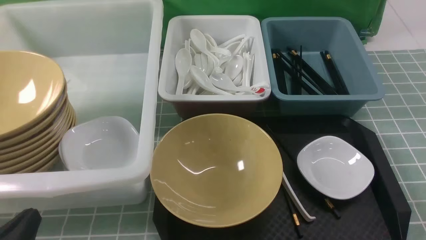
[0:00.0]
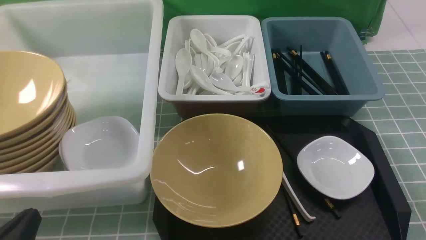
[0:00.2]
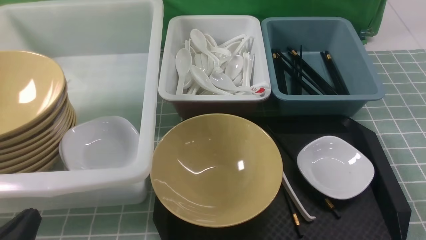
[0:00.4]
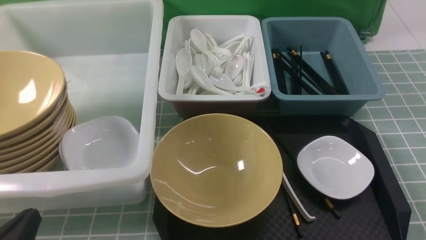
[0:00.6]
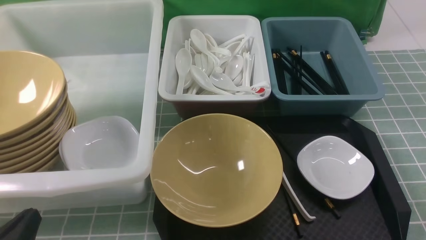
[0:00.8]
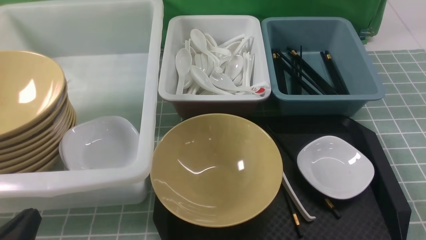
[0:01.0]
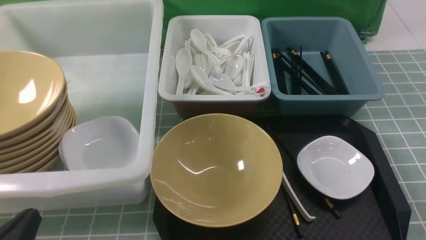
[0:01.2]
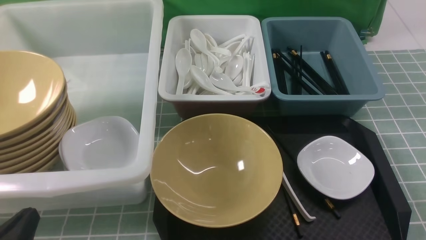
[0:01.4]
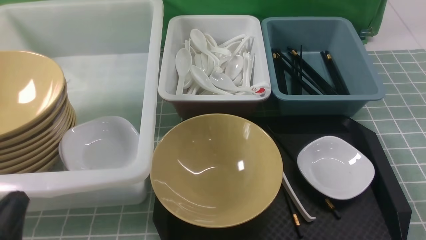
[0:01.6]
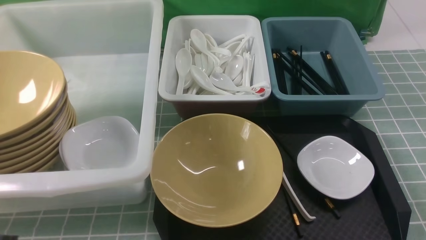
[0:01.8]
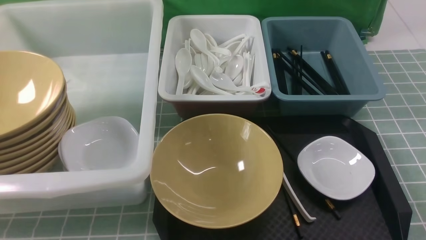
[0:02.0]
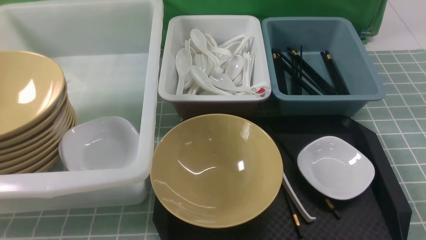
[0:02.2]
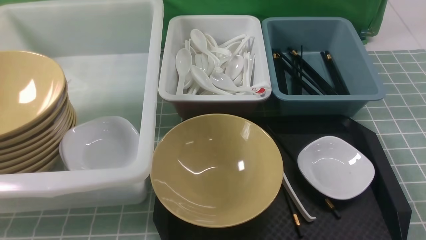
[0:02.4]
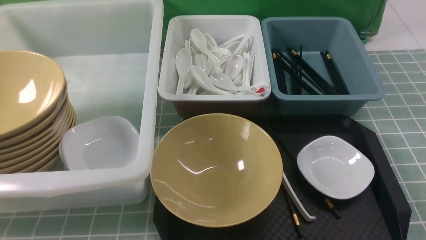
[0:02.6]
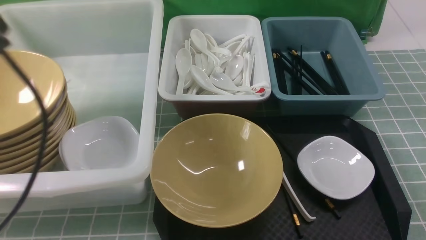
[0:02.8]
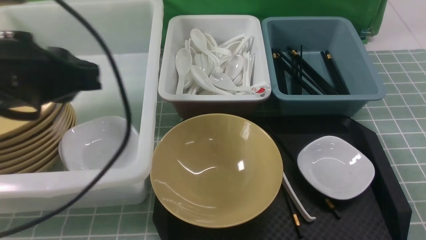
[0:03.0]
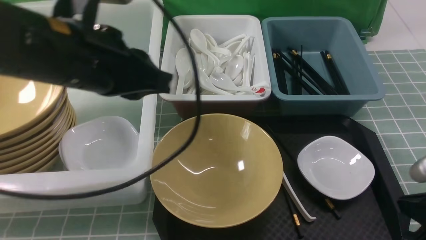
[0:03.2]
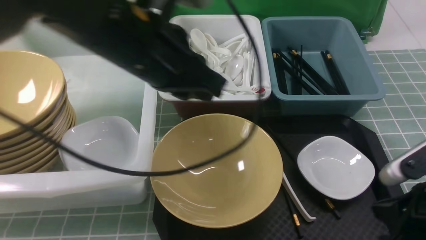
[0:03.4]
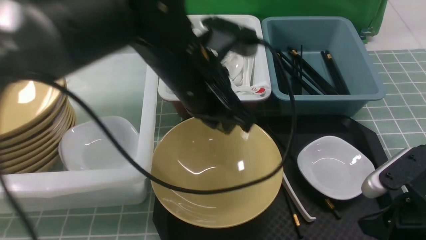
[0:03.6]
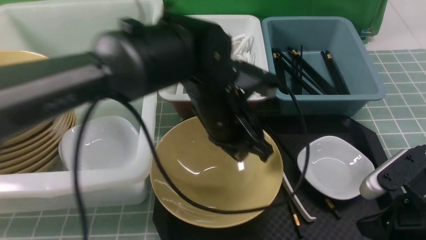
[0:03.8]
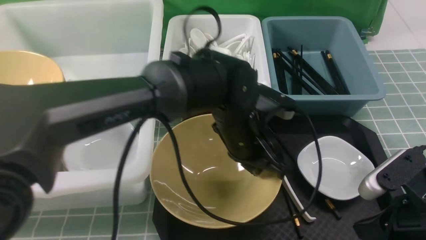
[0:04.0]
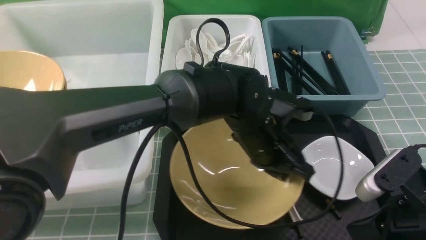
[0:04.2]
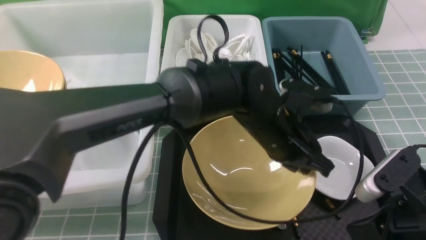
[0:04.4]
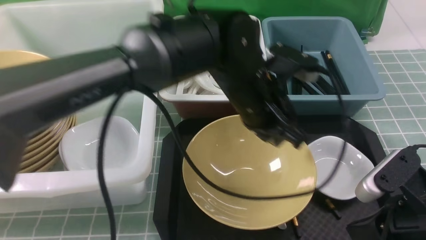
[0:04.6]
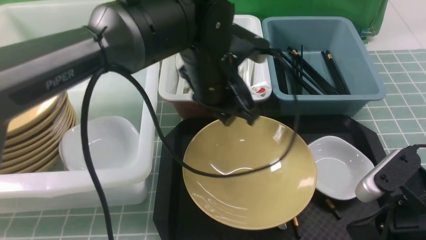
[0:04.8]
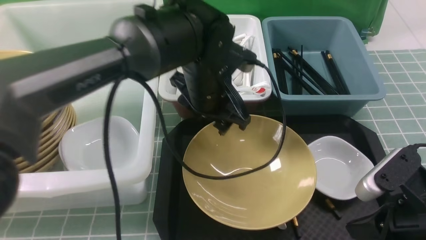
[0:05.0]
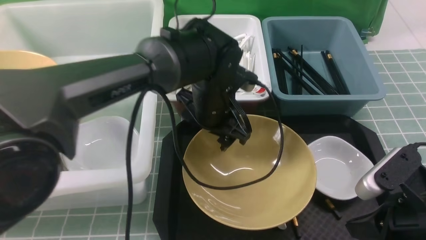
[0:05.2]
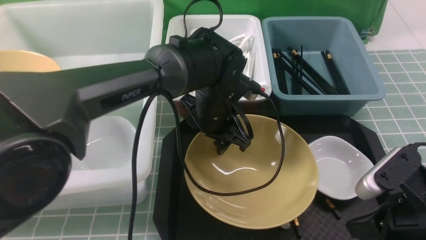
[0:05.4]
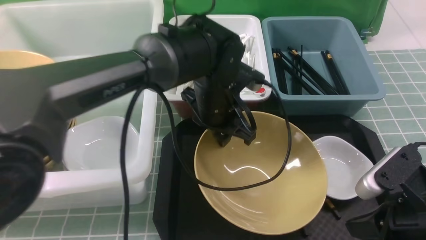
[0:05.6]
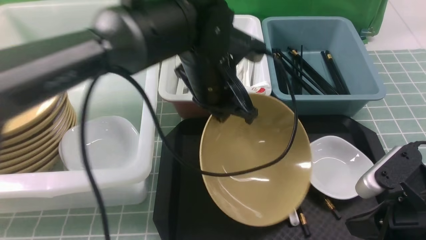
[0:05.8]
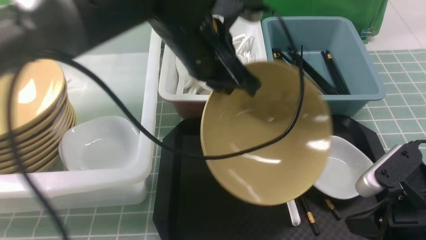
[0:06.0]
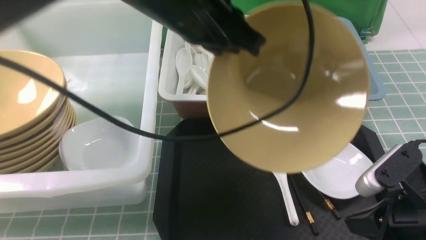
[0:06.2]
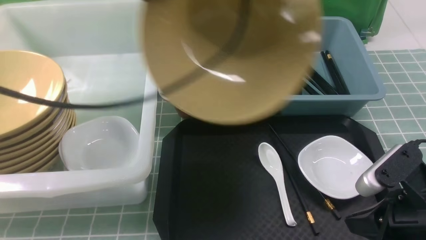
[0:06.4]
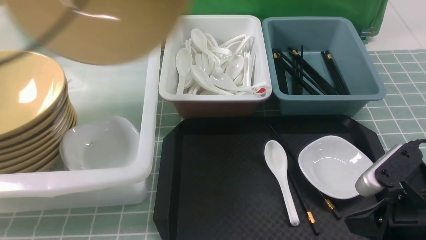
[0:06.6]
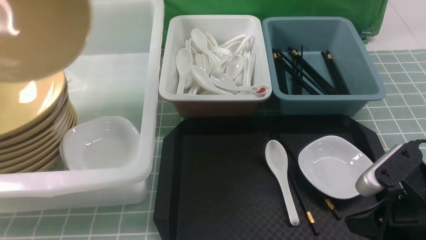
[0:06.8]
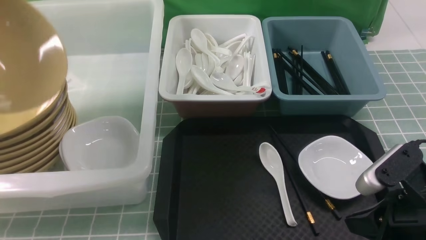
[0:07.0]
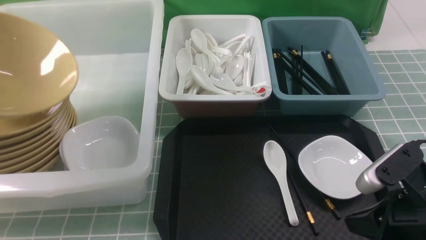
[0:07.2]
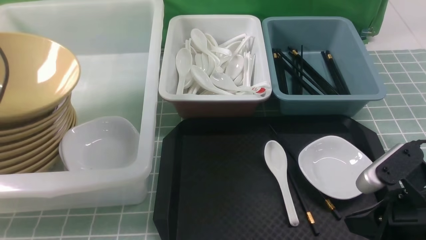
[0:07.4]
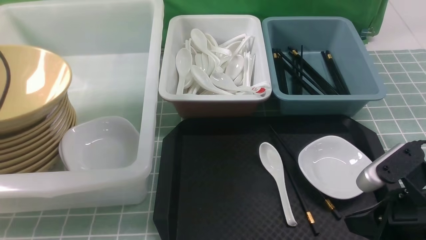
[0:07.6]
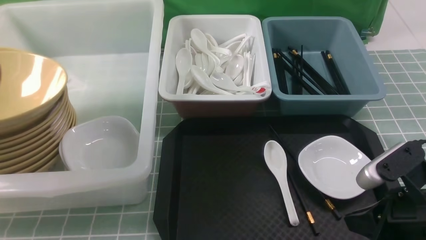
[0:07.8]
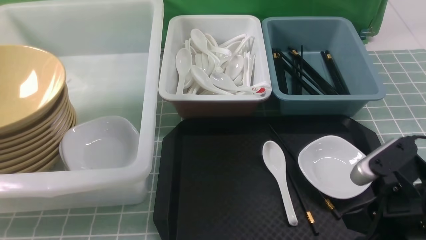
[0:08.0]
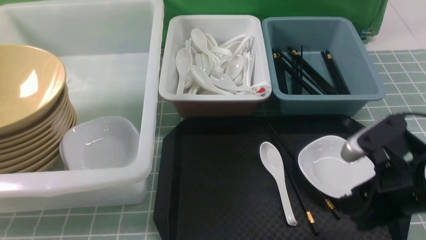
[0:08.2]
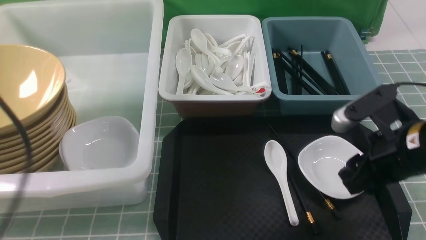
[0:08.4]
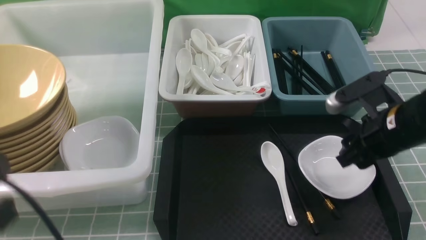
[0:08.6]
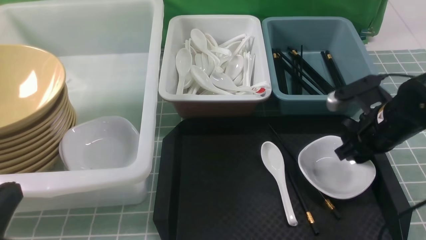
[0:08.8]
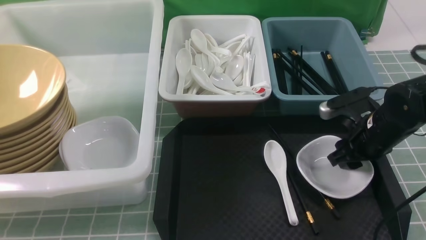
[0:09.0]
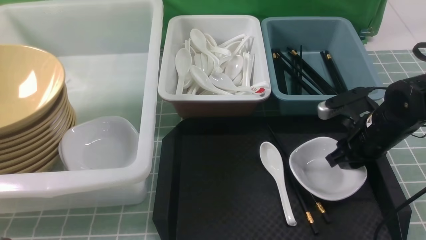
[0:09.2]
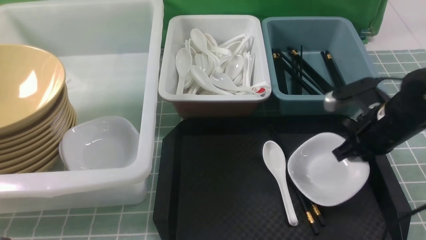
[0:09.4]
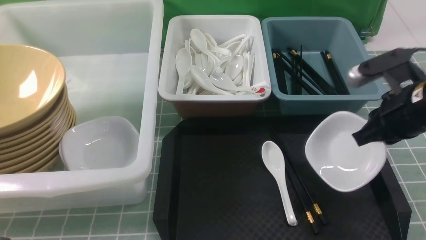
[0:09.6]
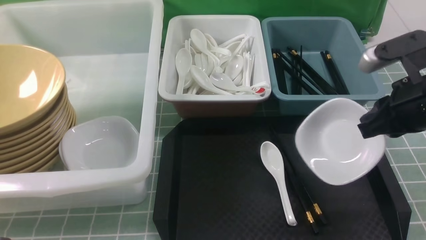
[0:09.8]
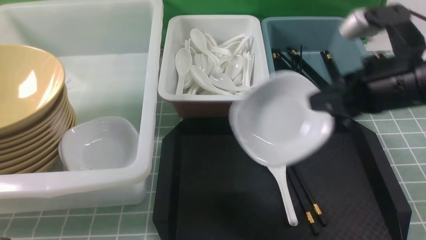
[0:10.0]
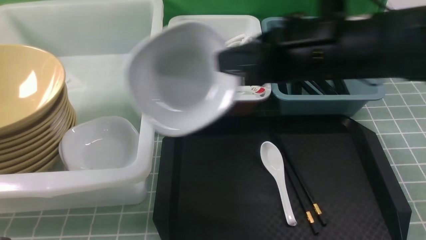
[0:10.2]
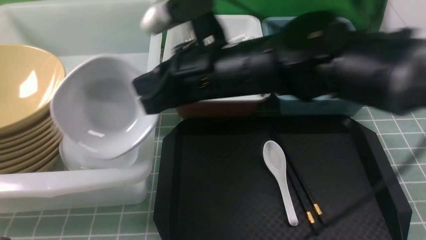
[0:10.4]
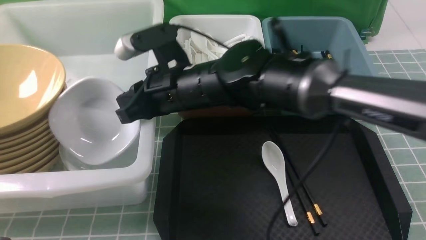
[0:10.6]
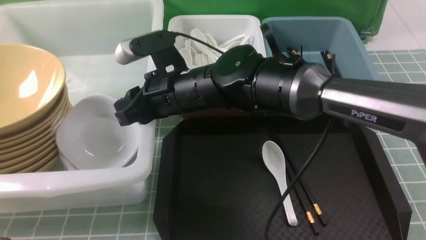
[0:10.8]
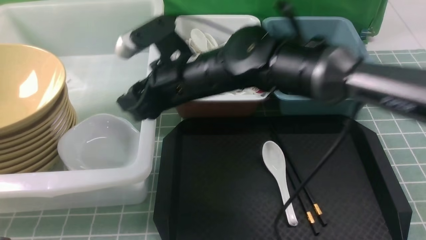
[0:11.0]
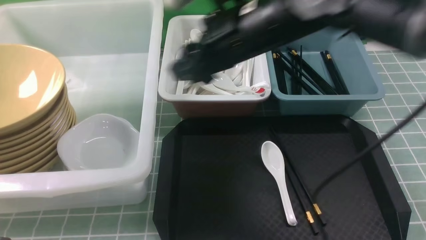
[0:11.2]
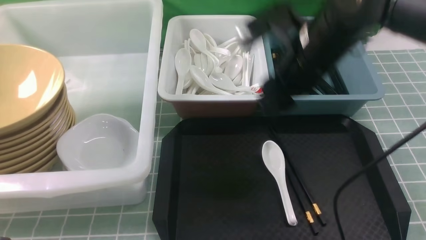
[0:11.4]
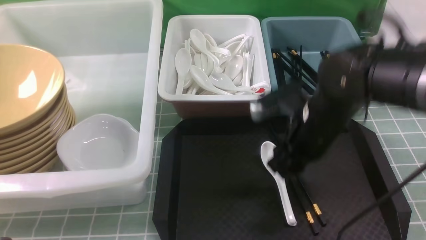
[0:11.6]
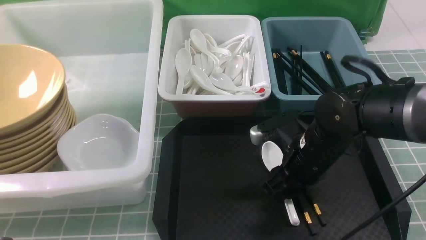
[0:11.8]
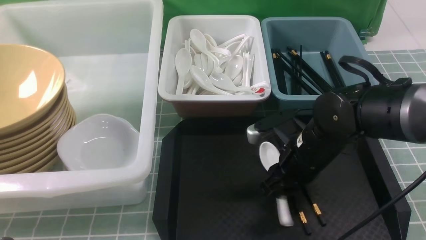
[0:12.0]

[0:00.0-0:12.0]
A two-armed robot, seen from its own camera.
Task of the whole recording: on blue table put chopsticks spoon bowls plates into blue grey white boxes.
Step, 0:00.0 to 0:05.6: use the left arm to grab the yellow noodle bowl on the left.
Step, 0:06.0 to 0:07.8: use the left arm to put the noodle bowl into the large storage box on the left.
Step, 0:08.0 to 0:09.4: use the right arm to grab the plate.
Step, 0:09.6 to 0:11.0: use the right arm to put the plate into the large storage box on the left.
0:00.0 to 0:01.6: The grippers make only small movements.
0:01.6 to 0:03.0: The left gripper is displaced upward, forward and to the right by about 25 cm.
0:03.0 to 0:04.4: The right gripper heads to the left, covering approximately 5 cm. The left gripper shifts approximately 30 cm to the right and downward.
0:04.4 to 0:06.0: The left gripper shifts about 15 cm upward and to the left, and opens and closes again.
0:06.0 to 0:07.6: The left gripper moves to the left, approximately 35 cm, and opens.
0:07.6 to 0:09.0: The left gripper is displaced backward, to the right and downward by some 25 cm, and closes. Meanwhile the right gripper goes approximately 15 cm forward, and opens its fingers.
0:09.0 to 0:10.4: The right gripper shifts some 30 cm to the left and upward, and closes up.
0:10.4 to 0:12.0: The right gripper moves downward and to the right, roughly 20 cm, and opens up.

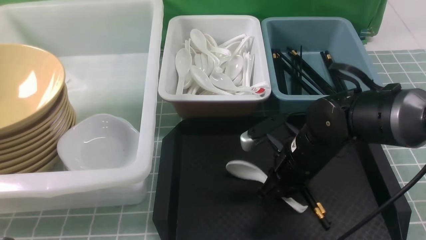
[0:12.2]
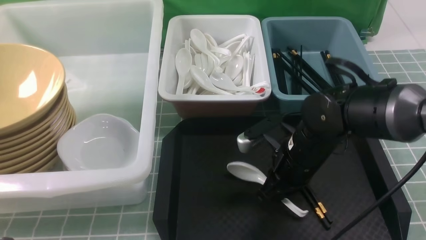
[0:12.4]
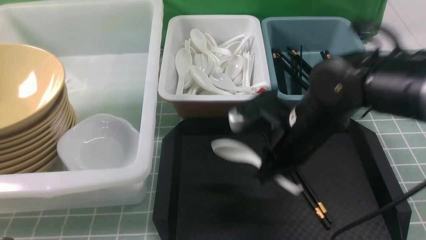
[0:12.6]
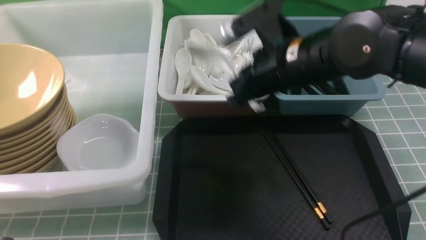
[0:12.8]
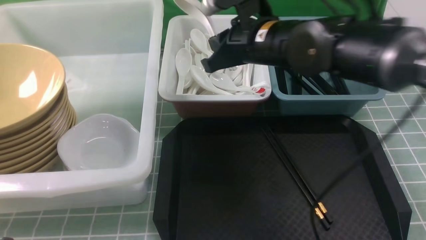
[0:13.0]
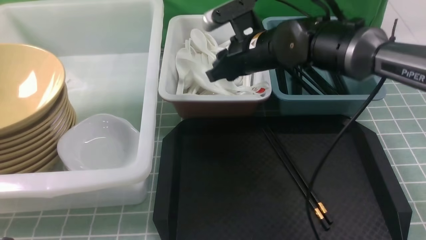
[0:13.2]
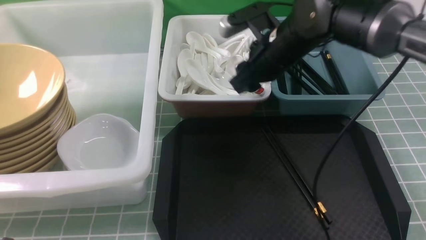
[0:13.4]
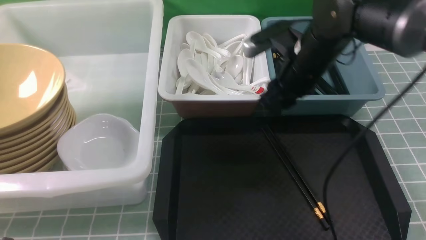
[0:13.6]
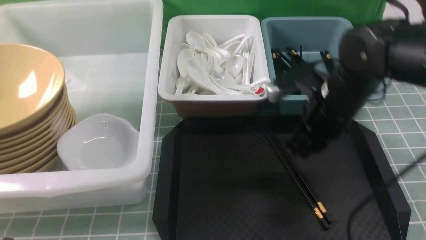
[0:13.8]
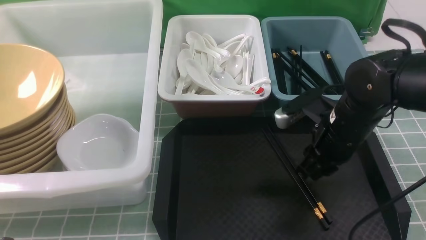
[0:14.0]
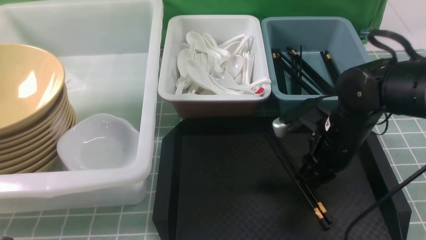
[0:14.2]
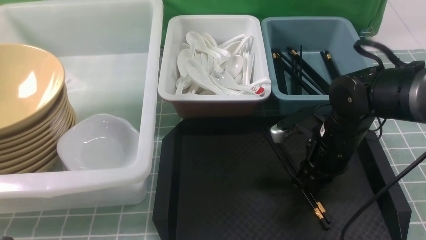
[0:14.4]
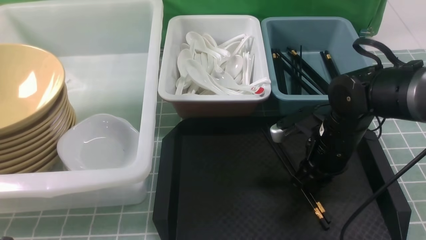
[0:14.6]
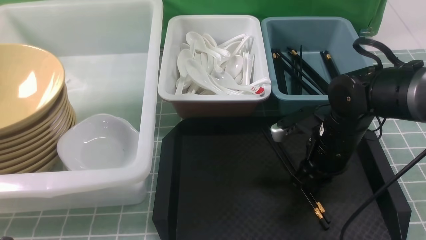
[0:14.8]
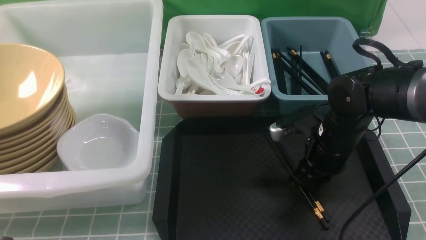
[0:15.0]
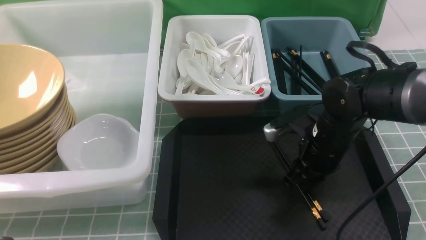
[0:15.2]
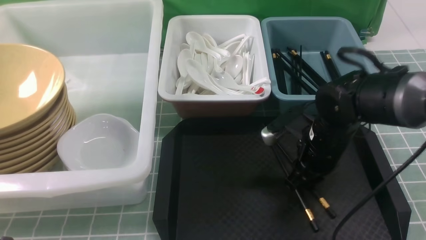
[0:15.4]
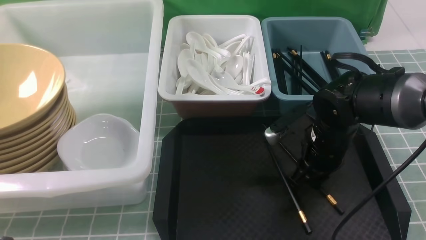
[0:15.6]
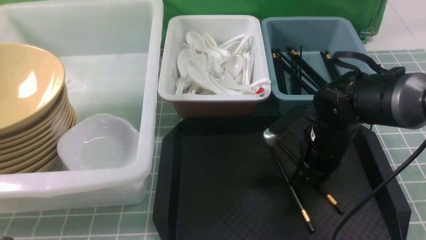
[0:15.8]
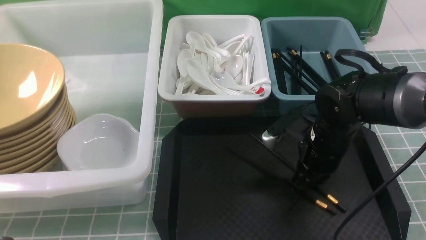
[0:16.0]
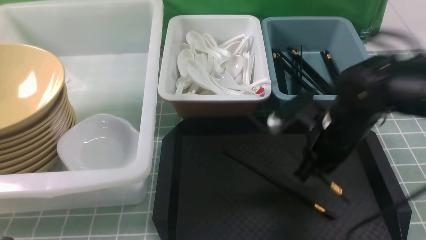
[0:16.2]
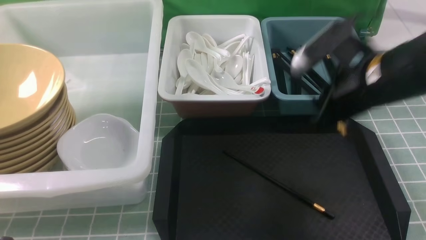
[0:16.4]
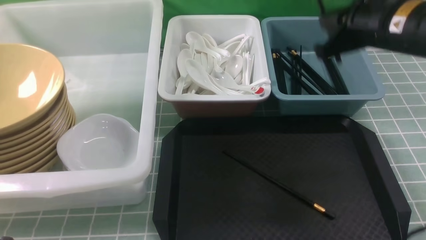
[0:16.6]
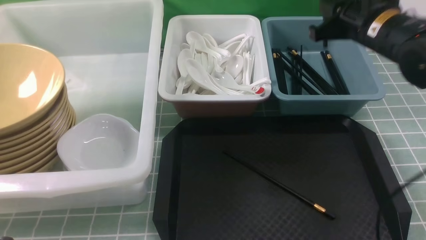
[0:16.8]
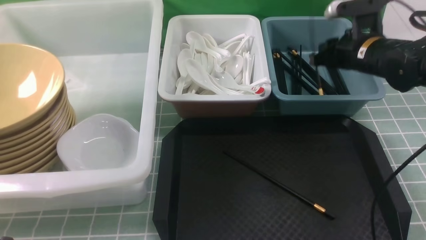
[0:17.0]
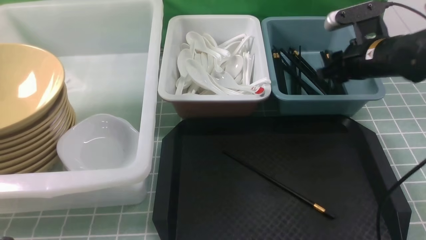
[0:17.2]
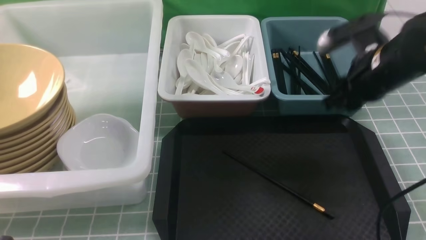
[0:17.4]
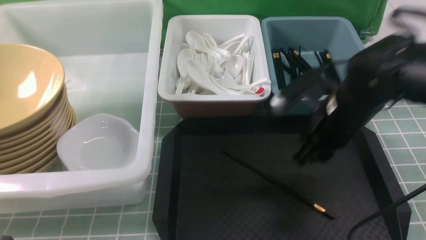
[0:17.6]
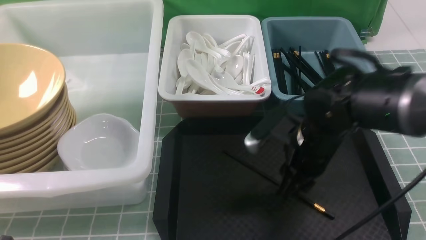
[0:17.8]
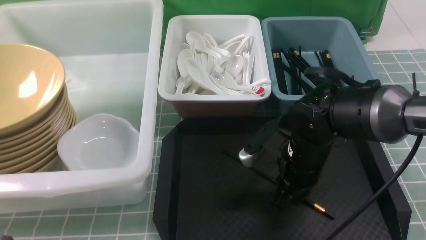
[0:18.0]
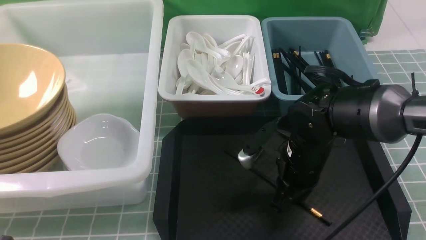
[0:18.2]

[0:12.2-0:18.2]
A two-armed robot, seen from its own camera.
Task of the whole recording: on blue table put chopsticks spoon bowls plates into blue grey white boxes.
Step, 0:12.6 to 0:13.2: use the right arm to put the soup spoon into the small storage box in the middle.
Step, 0:13.4 to 0:16.2: use the right arm to grab a chopstick.
Step, 0:16.6 to 0:17.0: use the right arm to put a chopstick into the small storage box on the right.
0:12.2 to 0:13.8: The right gripper travels upward by roughly 5 cm, and travels forward and back again, about 10 cm each way.
0:13.8 to 0:15.2: The right gripper moves downward, approximately 5 cm.
0:15.2 to 0:16.6: The right gripper heads upward, covering roughly 15 cm, and closes its fingers.
0:16.6 to 0:18.2: The right gripper goes about 15 cm downward, to the left and backward, and opens and closes again.
